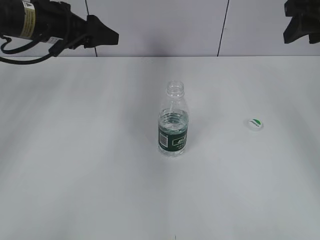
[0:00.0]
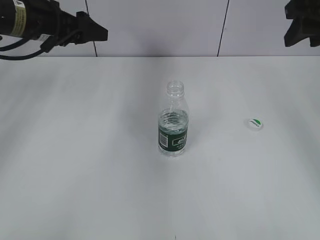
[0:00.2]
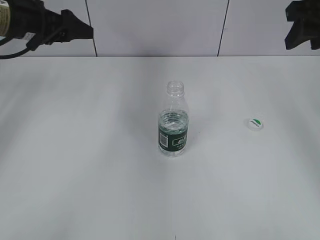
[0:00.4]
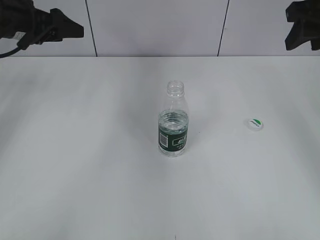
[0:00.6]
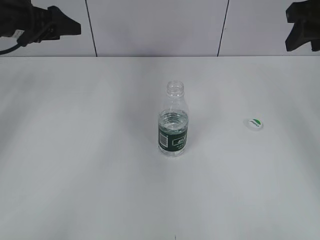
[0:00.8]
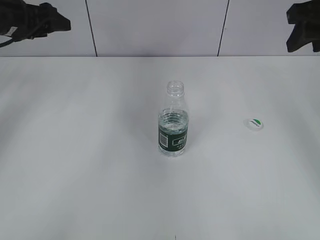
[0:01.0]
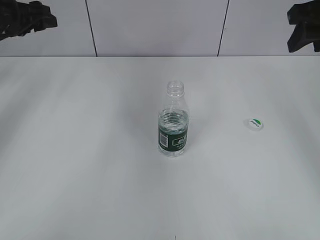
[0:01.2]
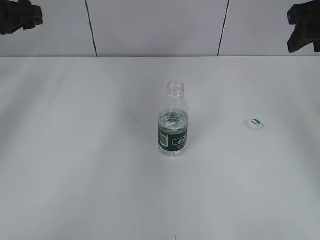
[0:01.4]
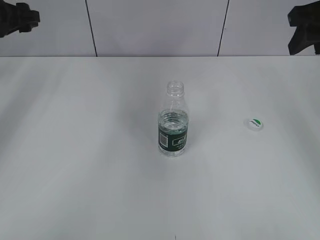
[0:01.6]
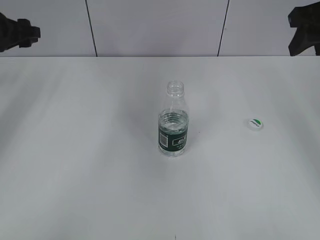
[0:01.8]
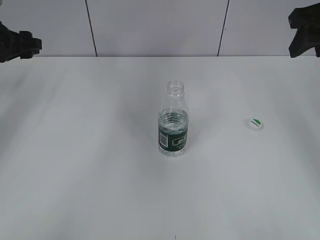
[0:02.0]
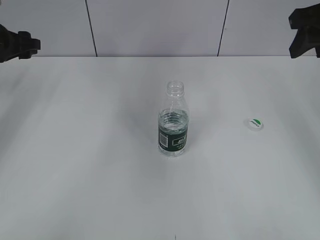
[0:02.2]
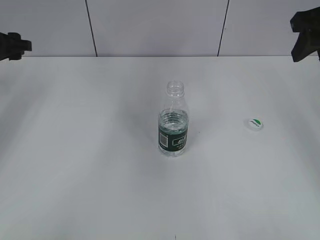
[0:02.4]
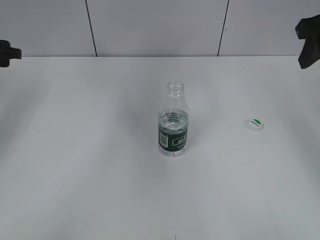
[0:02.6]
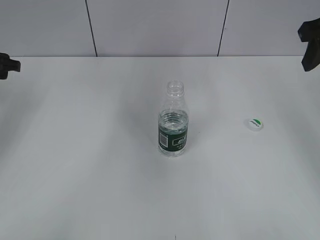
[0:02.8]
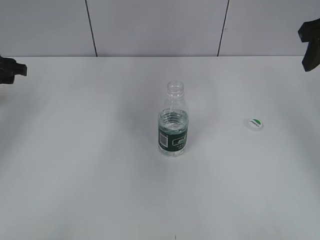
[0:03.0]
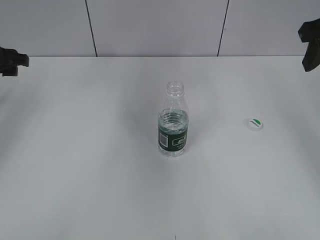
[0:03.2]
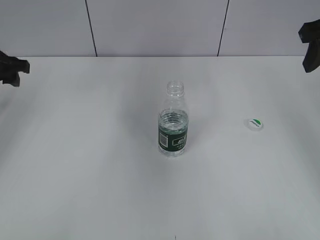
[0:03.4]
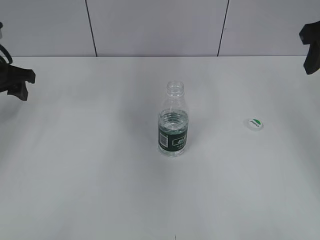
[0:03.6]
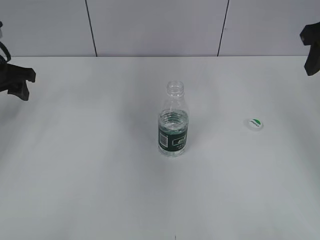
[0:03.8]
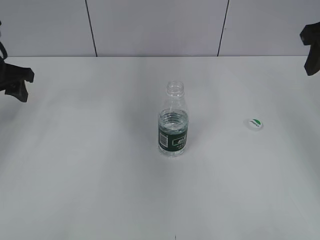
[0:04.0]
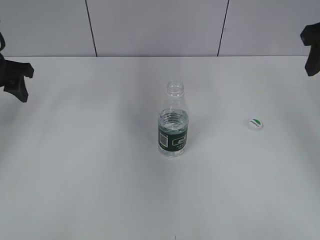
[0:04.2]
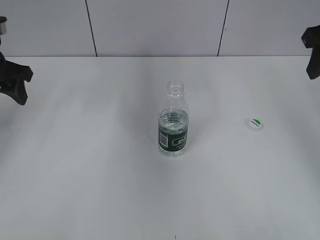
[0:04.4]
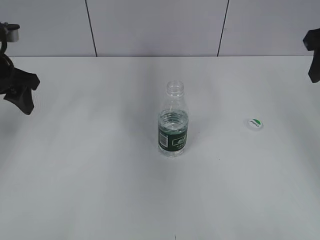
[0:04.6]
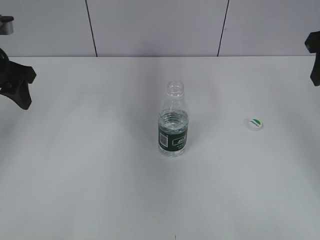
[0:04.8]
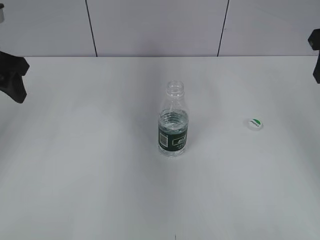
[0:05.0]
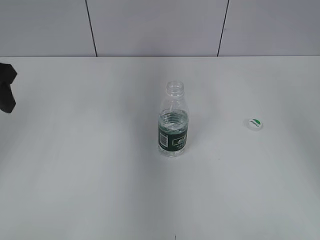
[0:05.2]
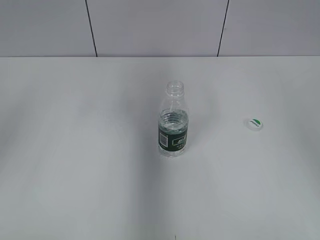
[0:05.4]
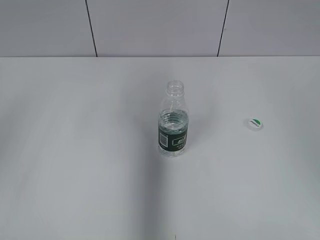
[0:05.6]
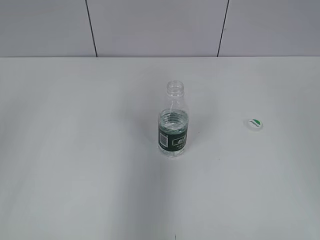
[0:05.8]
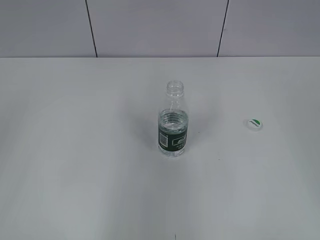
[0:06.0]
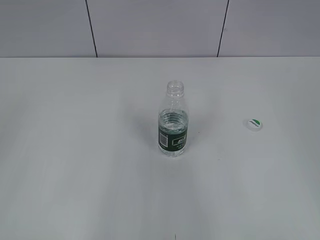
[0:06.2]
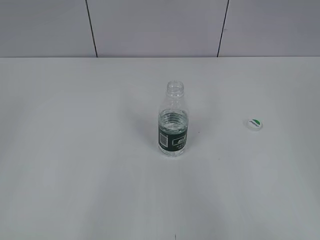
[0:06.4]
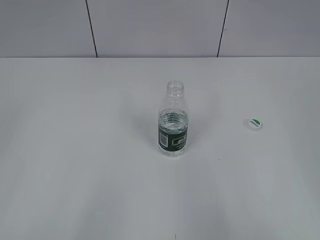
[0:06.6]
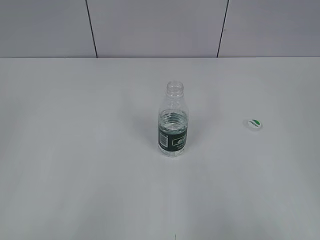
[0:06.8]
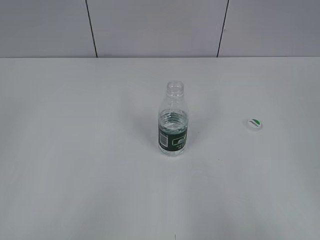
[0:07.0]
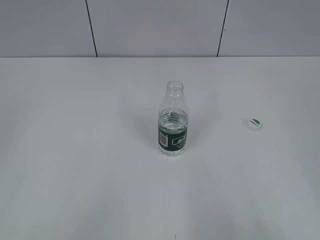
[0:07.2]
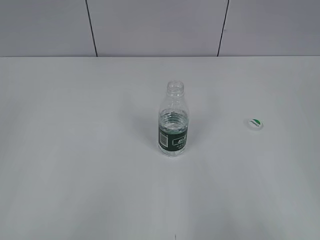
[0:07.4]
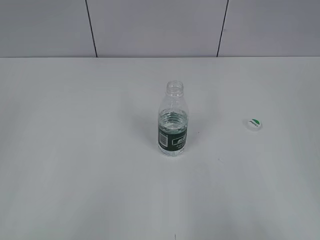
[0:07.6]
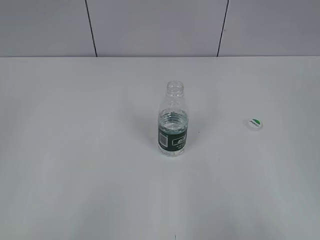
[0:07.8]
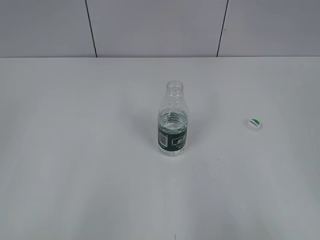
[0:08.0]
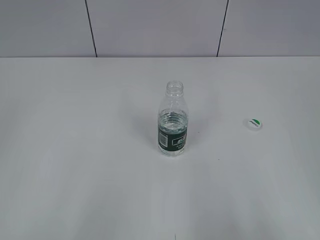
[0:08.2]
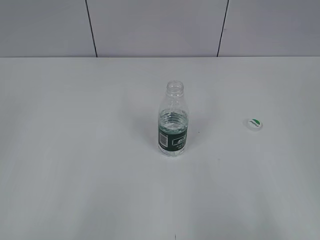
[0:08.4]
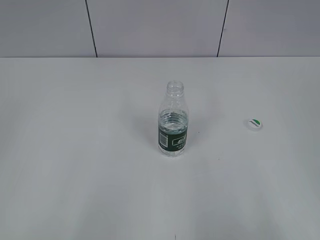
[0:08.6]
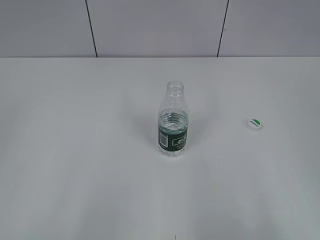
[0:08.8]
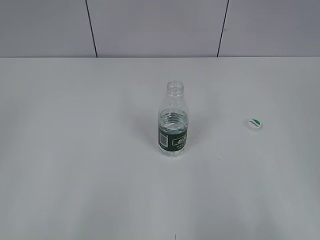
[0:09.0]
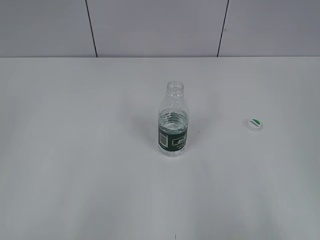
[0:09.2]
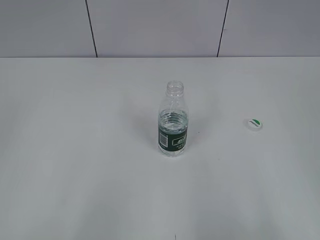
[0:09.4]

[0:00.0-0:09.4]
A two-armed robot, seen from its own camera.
0:00.0 to 0:01.6: The left gripper moves to the left, approximately 10 cm.
0:01.6 to 0:03.2: The left gripper heads backward, covering roughly 5 cm.
0:03.2 to 0:04.8: The left gripper shifts some 5 cm backward.
0:04.8 to 0:06.2: The grippers both shift backward by some 25 cm.

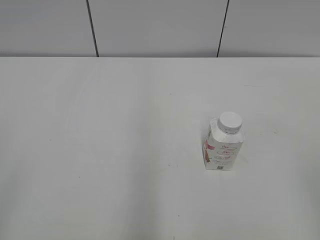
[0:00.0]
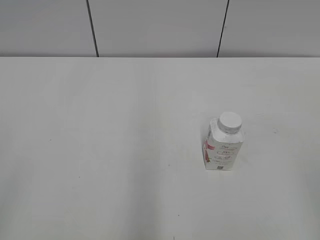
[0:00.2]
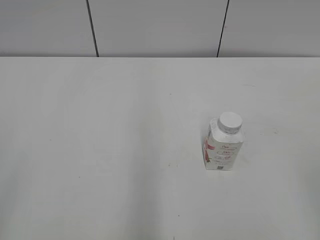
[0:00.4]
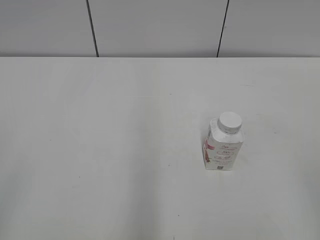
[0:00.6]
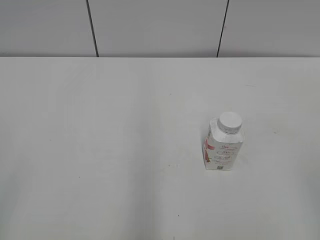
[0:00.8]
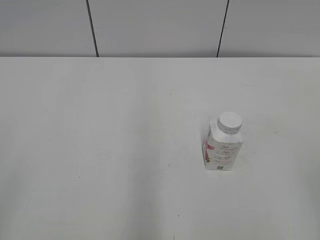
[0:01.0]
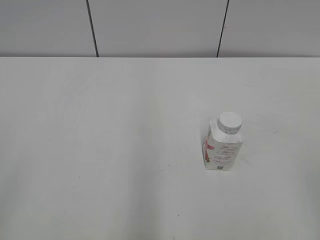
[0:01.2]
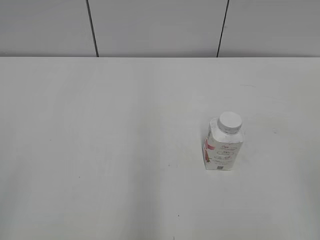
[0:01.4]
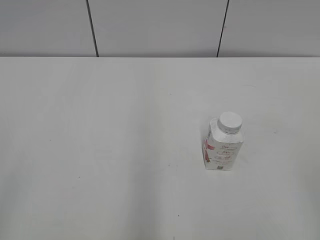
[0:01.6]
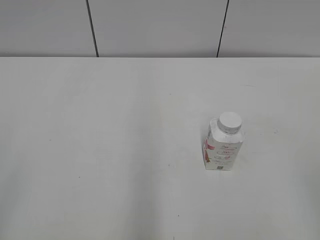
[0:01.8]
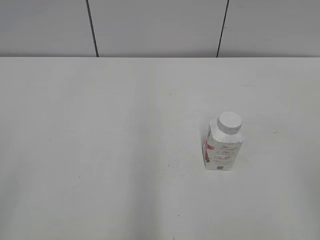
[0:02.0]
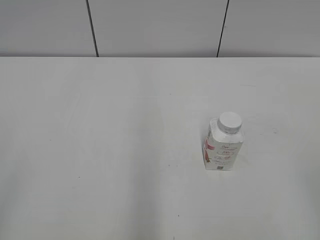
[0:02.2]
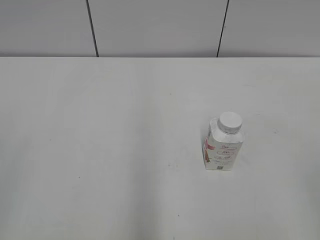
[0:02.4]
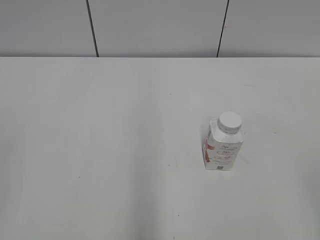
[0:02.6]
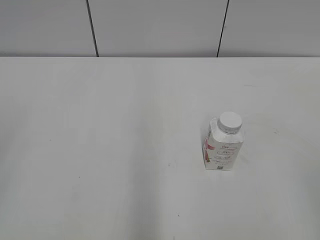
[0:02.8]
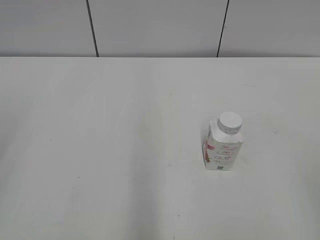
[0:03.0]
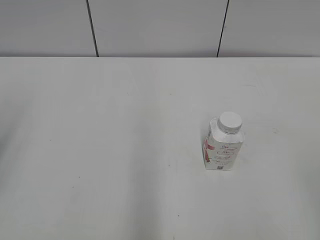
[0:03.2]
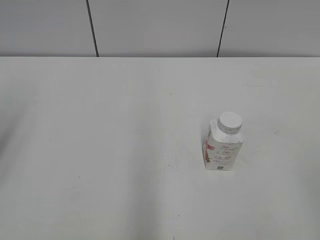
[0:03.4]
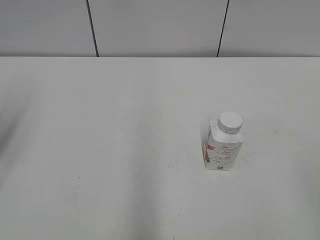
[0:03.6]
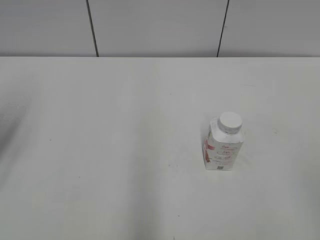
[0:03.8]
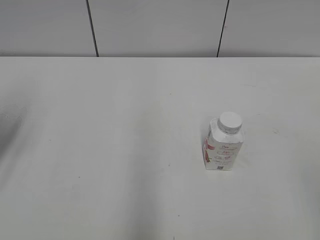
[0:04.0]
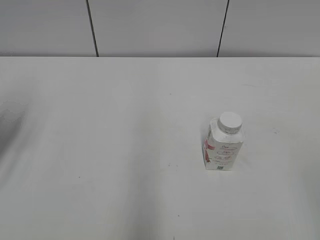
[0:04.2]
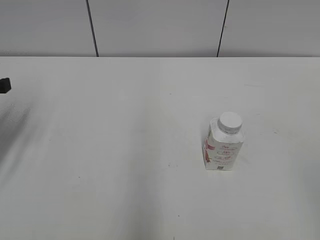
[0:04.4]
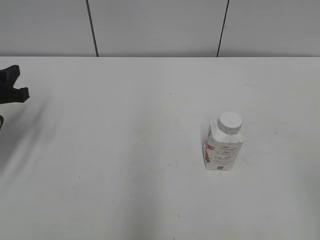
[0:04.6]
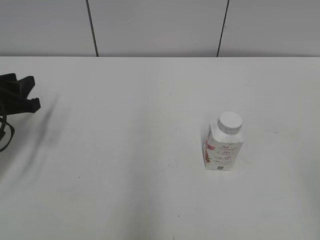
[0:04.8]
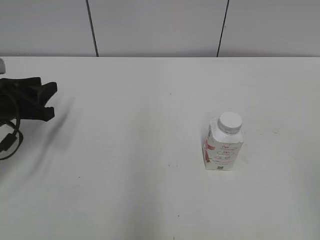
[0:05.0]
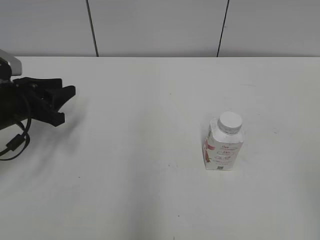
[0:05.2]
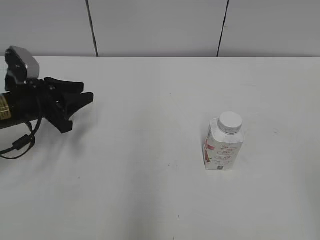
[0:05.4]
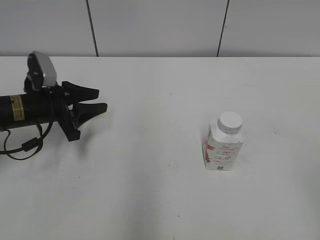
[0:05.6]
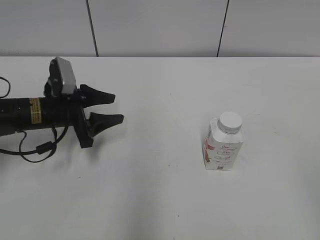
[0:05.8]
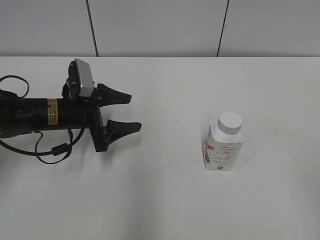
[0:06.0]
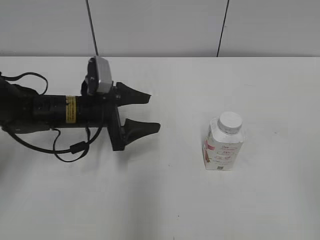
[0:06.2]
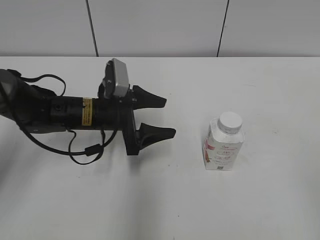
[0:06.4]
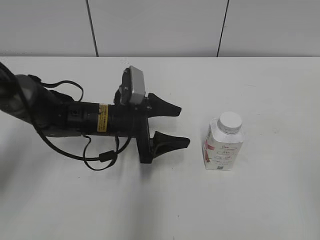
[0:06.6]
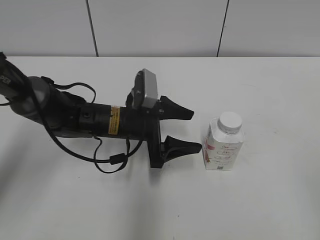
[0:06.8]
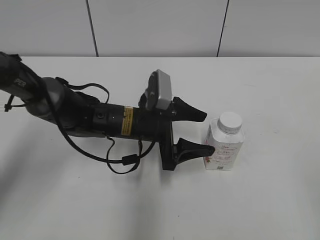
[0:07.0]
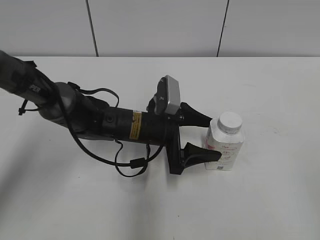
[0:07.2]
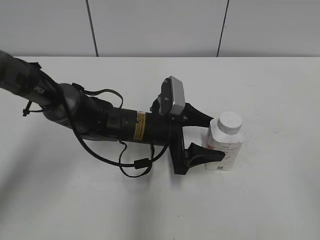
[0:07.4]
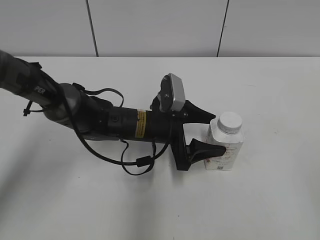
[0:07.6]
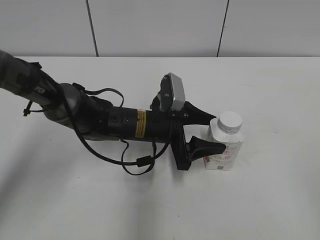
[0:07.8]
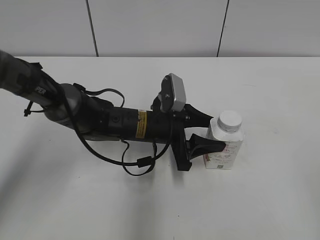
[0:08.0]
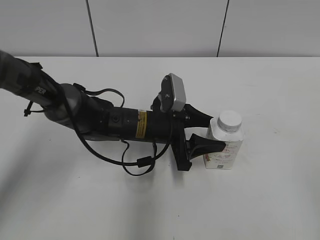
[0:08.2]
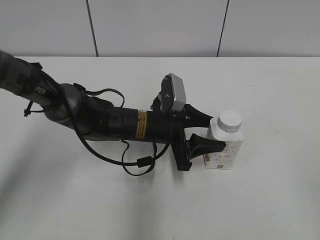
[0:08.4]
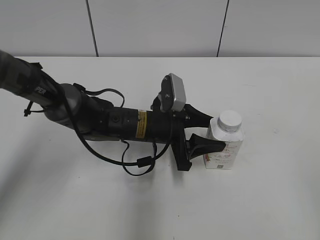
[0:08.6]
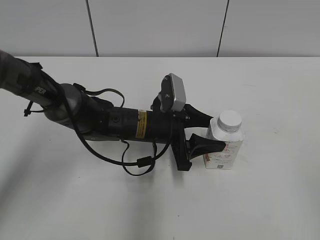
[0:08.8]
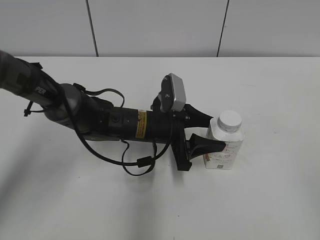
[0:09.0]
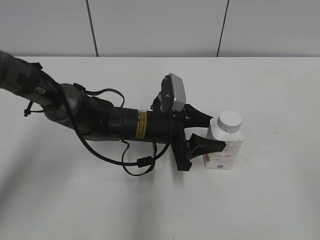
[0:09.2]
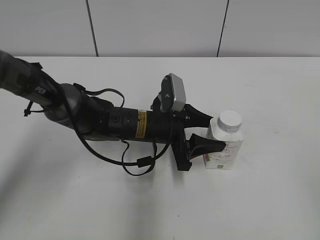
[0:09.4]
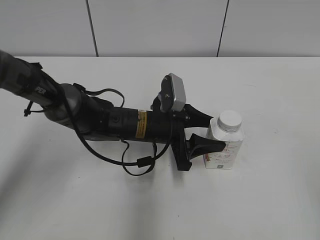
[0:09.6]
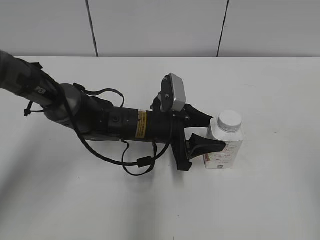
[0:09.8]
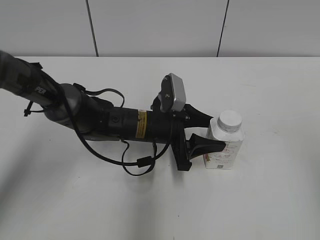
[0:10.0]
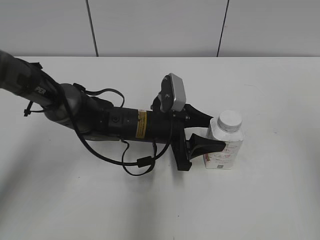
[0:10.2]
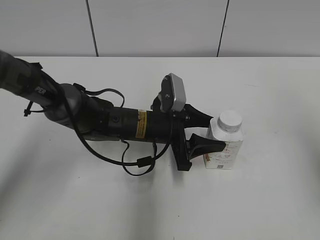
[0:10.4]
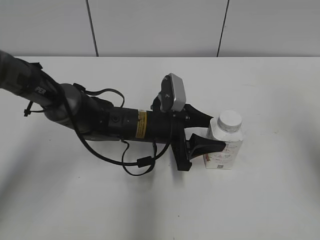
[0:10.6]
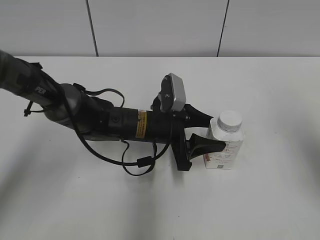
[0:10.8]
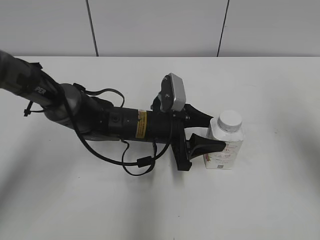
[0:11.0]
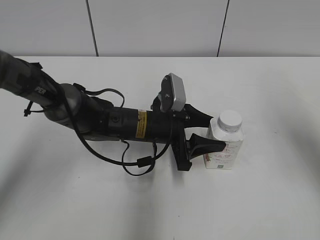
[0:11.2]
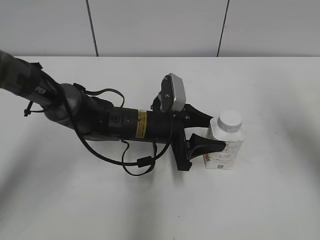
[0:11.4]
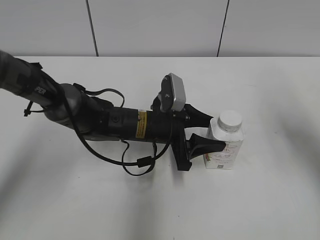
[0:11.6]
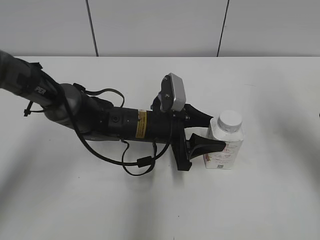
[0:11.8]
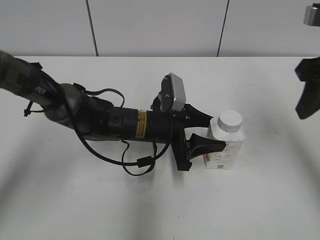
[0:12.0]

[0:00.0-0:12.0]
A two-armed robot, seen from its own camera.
Step, 0:00.0 to 0:08.2: Grasp the bottle and move it to the center of the table with the left gripper.
0:03.0 to 0:04.4: The left gripper is displaced forward and downward by approximately 25 cm.
0:04.4 to 0:06.0: The left gripper travels to the right, downward and forward by roughly 20 cm, and opens its fingers.
0:06.0 to 0:07.6: The left gripper moves to the right, roughly 15 cm.
0:07.6 to 0:09.0: The left gripper closes its fingers.
0:10.4 to 0:12.0: The right gripper travels forward, to the left and downward by about 15 cm, and closes.

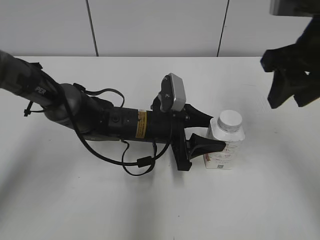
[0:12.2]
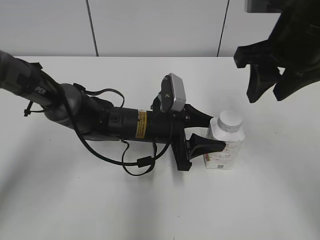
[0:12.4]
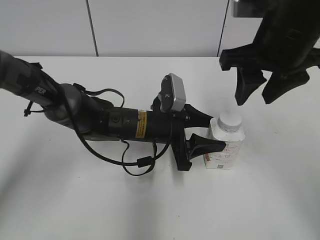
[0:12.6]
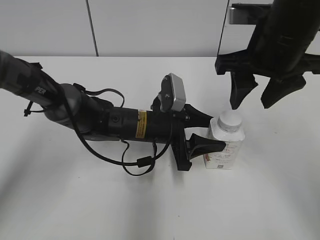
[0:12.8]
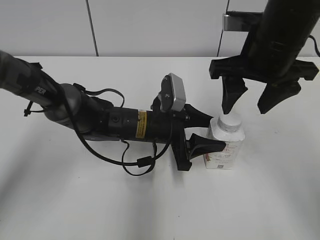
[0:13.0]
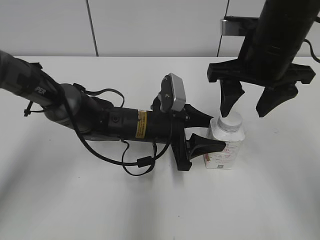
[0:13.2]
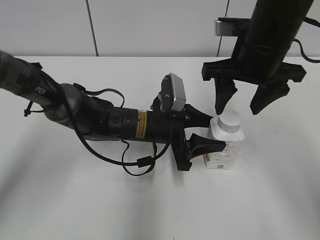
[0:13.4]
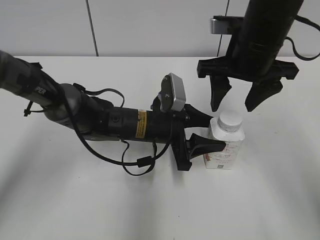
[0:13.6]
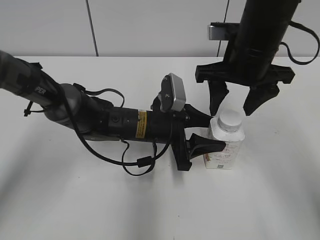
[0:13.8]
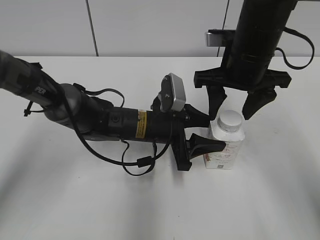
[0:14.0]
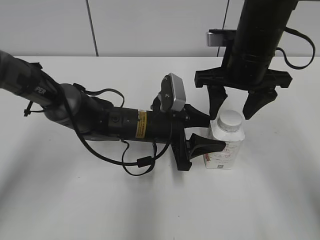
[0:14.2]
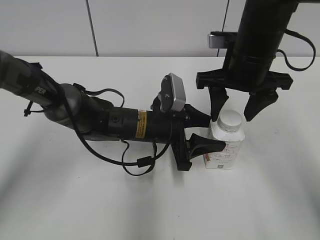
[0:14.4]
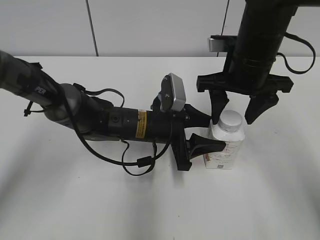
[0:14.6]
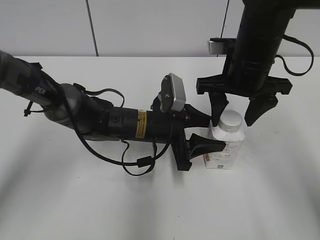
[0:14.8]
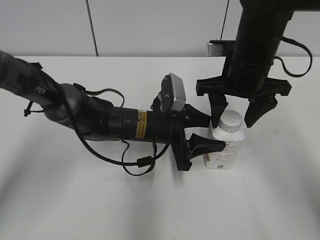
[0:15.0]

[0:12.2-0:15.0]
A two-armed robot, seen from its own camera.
0:12.2 to 0:13.6: The right gripper shifts about 5 cm to the left, and opens.
0:13.6 to 0:15.0: The grippers move only a little.
